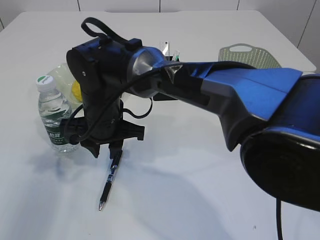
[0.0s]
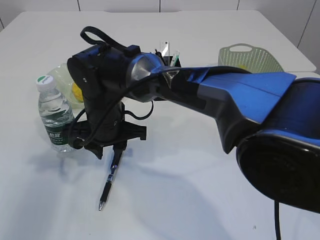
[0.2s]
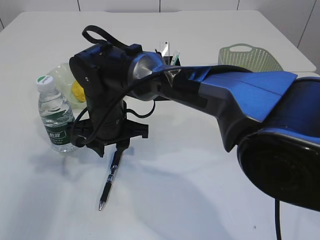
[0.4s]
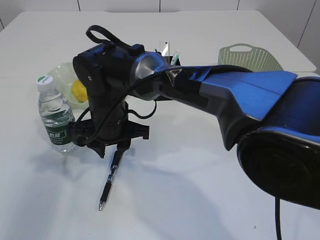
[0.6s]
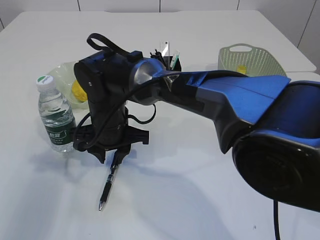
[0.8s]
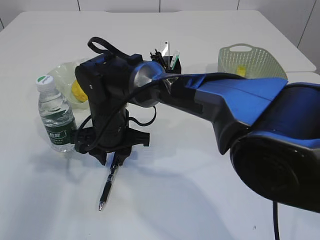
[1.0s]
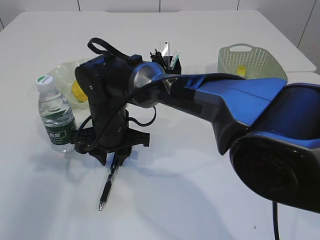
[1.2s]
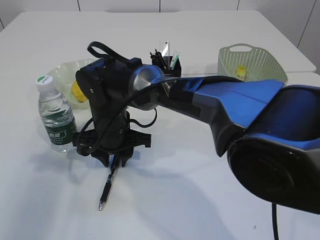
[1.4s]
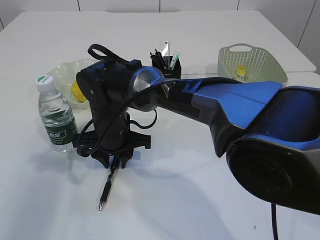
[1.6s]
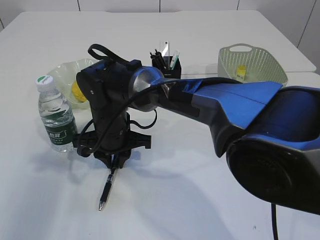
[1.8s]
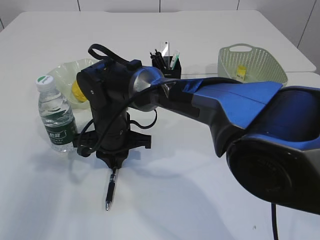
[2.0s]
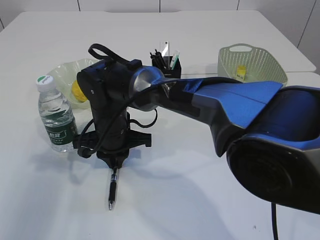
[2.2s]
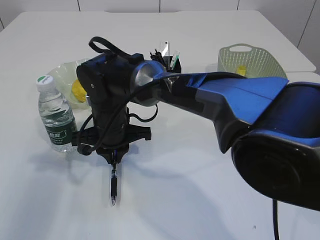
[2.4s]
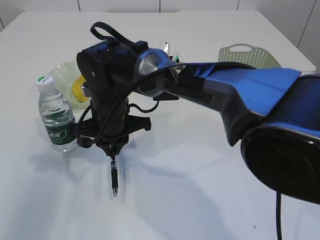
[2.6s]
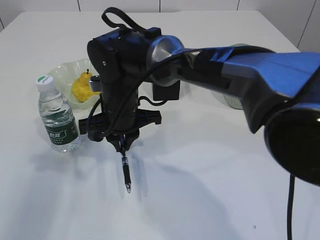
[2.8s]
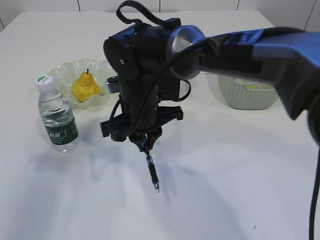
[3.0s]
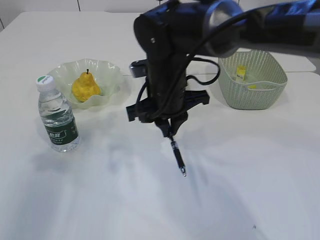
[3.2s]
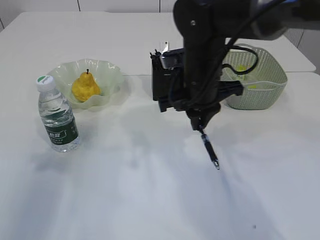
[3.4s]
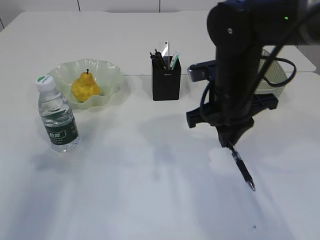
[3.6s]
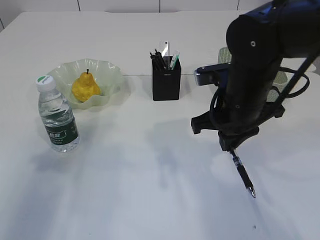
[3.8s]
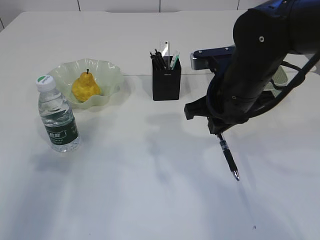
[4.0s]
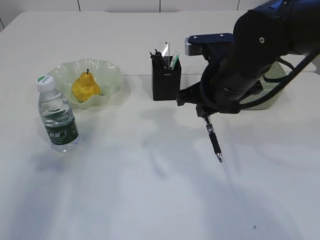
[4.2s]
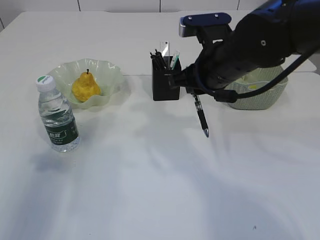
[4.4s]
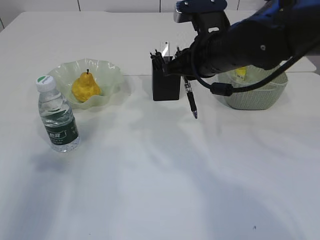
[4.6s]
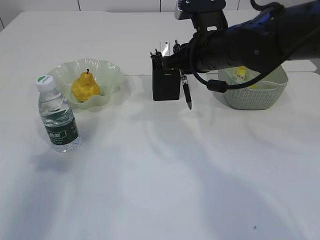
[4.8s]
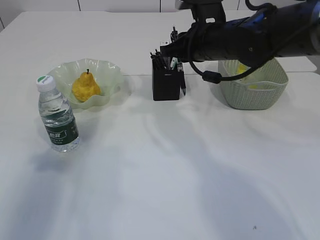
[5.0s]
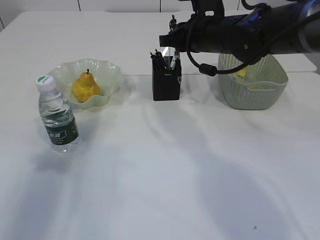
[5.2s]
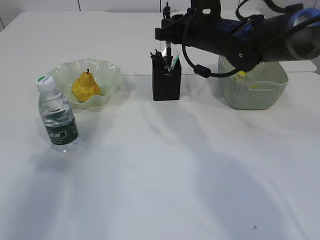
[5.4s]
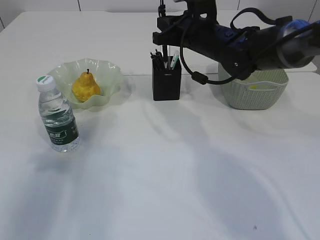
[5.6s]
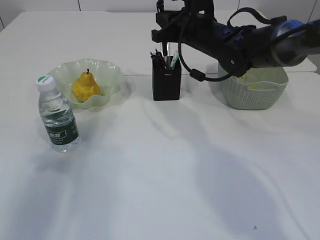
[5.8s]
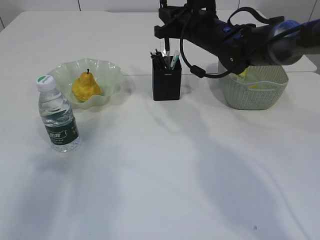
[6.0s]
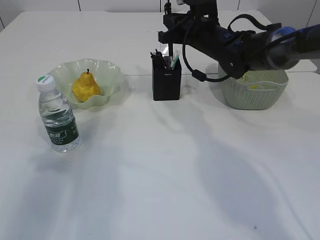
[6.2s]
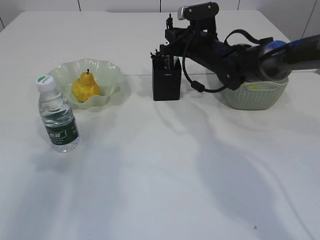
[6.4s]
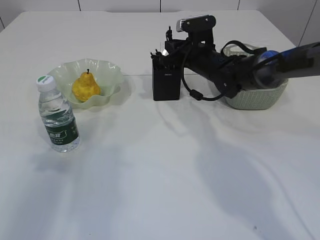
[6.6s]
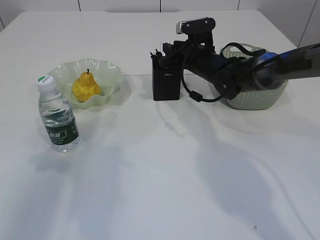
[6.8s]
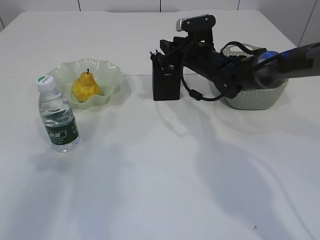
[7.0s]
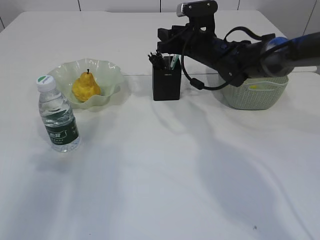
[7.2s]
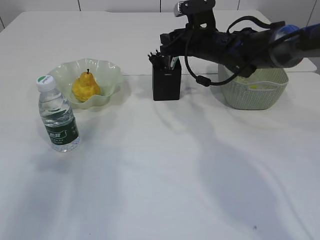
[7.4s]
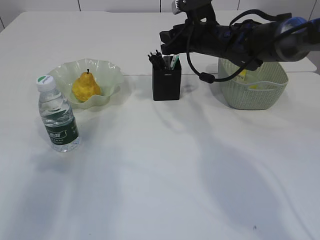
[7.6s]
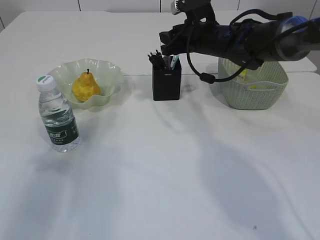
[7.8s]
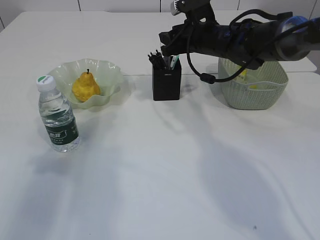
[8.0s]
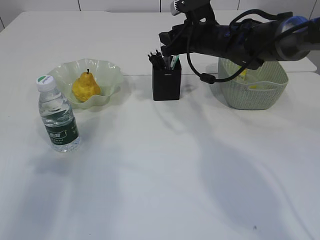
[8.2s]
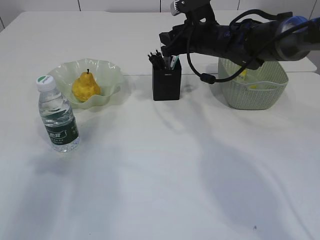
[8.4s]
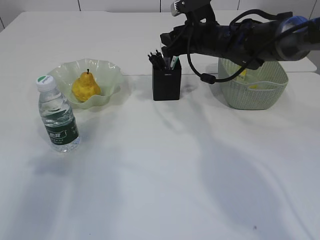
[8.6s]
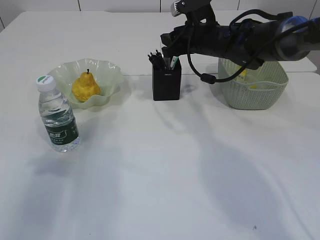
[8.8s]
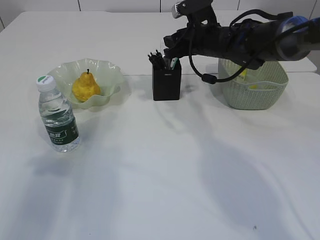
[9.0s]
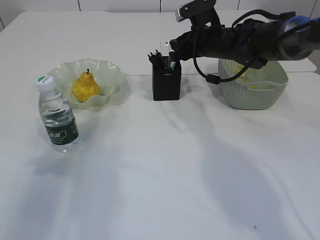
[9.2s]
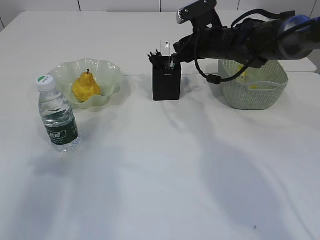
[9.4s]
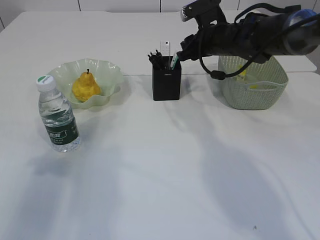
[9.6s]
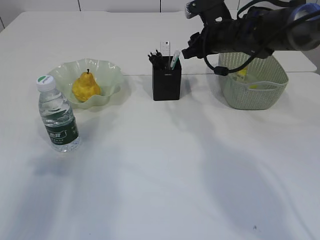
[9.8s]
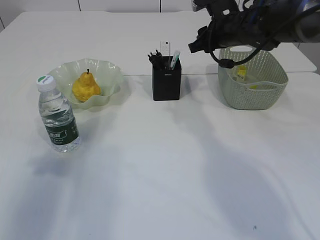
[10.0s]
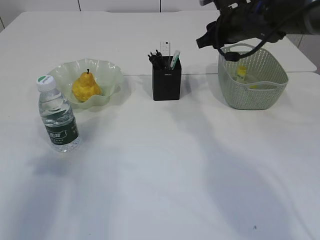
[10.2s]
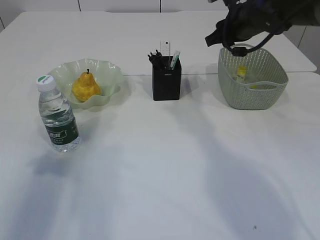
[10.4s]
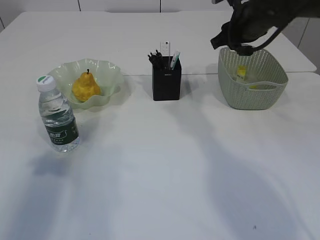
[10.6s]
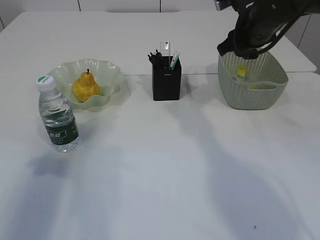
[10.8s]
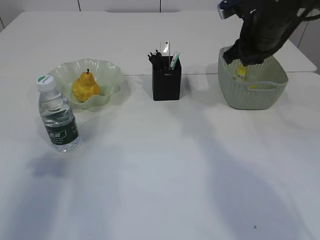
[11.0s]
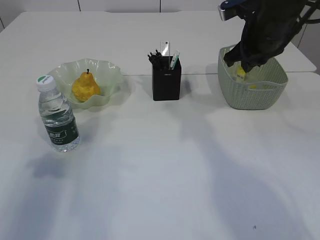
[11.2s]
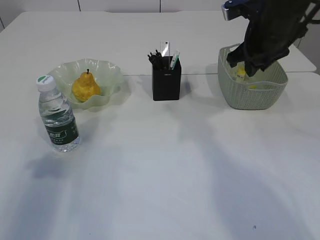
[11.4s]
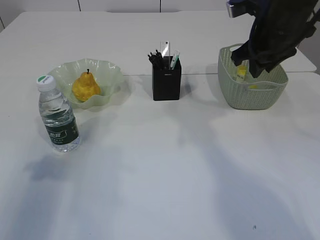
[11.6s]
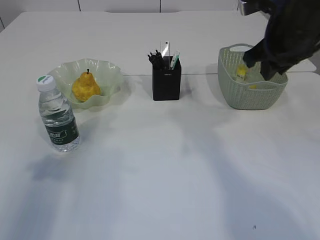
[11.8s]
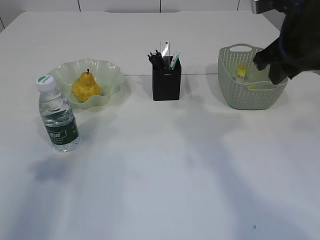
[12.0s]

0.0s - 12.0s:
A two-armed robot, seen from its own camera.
Step, 0.0s - 2.6s: Pick up the pen with right arm.
Step, 2.8s - 10.4s: Place the pen into the pen holder.
0.0s - 1.6s: The grippers make only small movements.
1.6s - 3.0s: The right gripper travels to the right and upward by approximately 10 cm, and closes up.
3.0s - 4.4s: The right gripper moves to the right and upward, about 15 cm.
4.4s - 6.0s: The right gripper travels forward by roughly 15 cm.
6.0s - 7.6s: The right gripper reaches roughly 10 cm downward, then returns, and opens up.
7.6s - 9.0s: Both grippers stay put.
9.0s - 10.4s: The right gripper heads to the right, covering roughly 5 cm.
10.4s - 12.0s: The right gripper heads backward, covering about 15 cm.

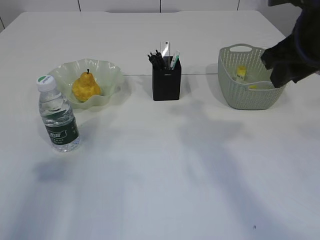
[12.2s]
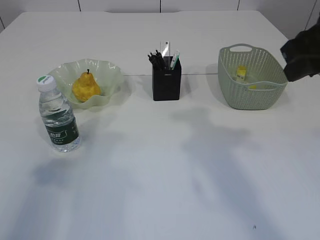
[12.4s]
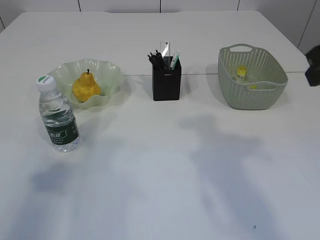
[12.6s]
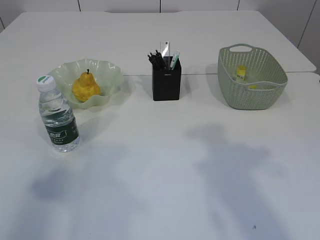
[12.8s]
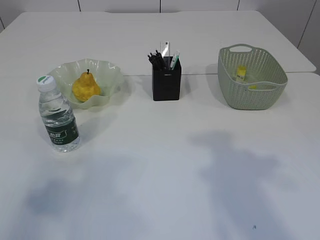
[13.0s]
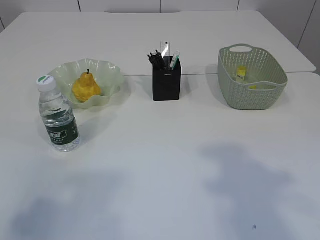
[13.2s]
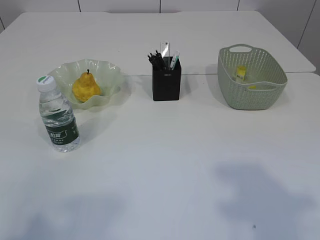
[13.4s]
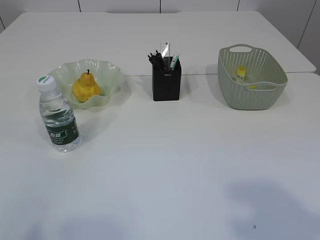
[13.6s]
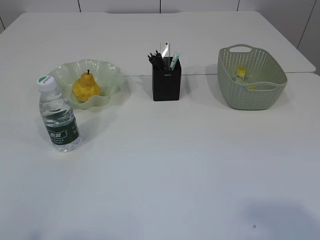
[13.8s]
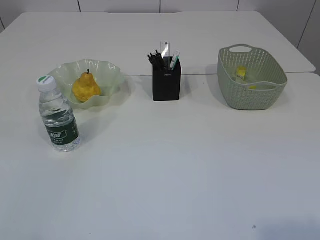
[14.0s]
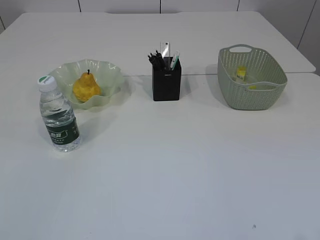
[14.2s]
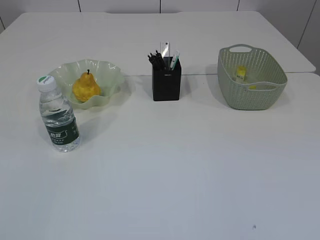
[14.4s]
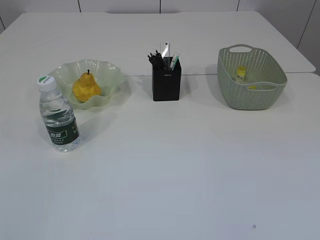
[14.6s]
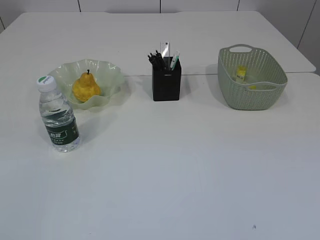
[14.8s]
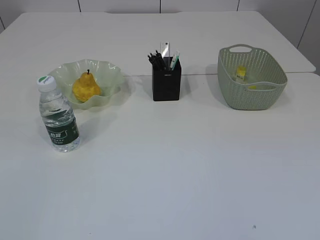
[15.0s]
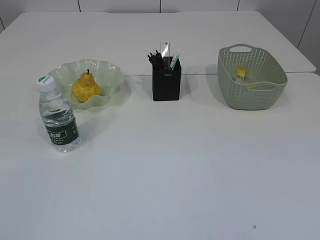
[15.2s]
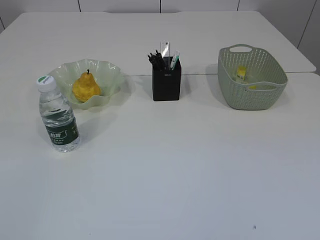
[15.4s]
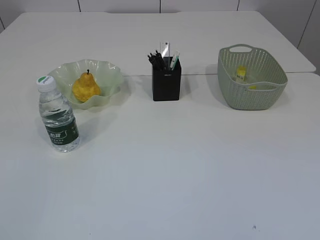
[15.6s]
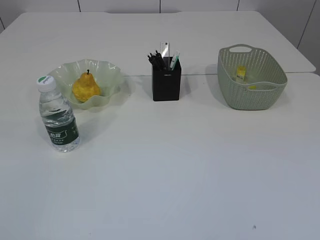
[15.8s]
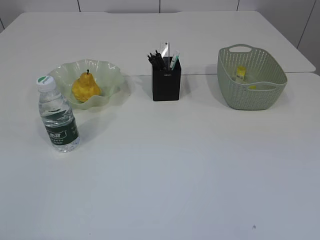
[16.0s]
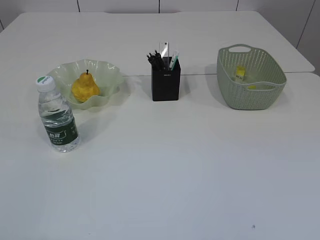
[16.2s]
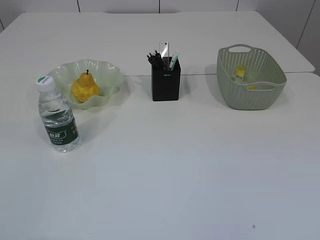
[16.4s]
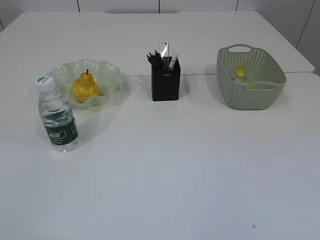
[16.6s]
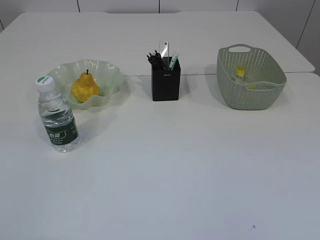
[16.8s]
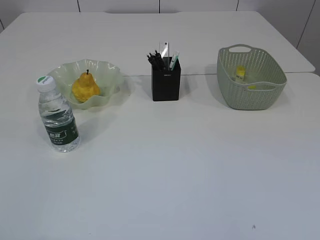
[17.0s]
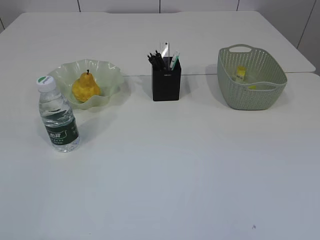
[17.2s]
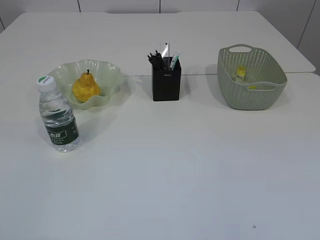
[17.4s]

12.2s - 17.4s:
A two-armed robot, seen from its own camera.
12.2s - 14.0s: The grippers both shift backward by some 25 cm.

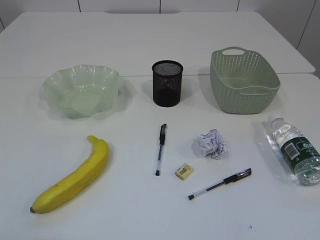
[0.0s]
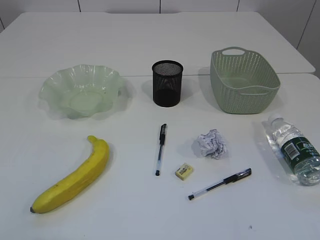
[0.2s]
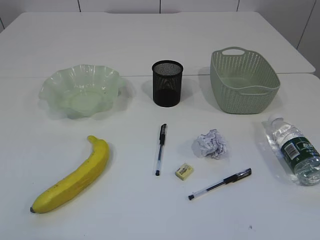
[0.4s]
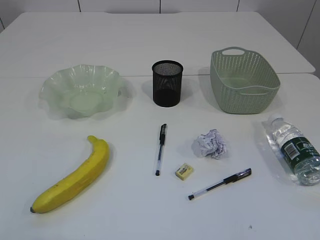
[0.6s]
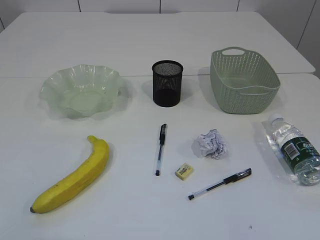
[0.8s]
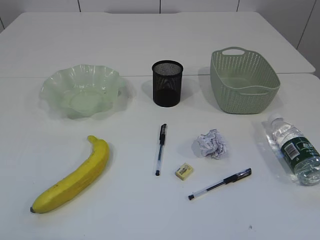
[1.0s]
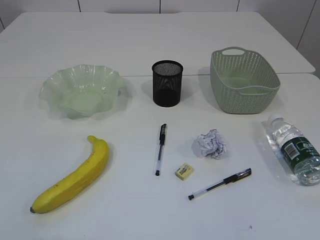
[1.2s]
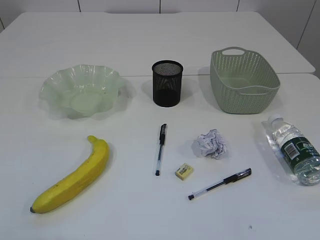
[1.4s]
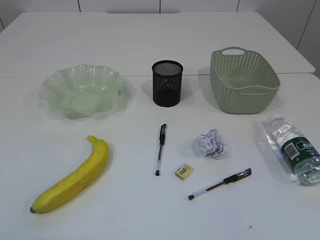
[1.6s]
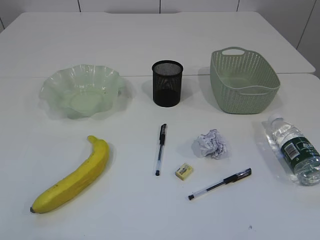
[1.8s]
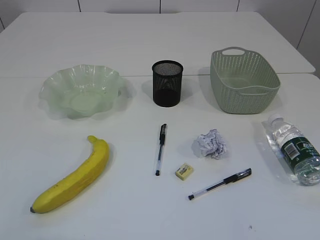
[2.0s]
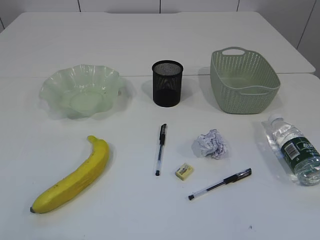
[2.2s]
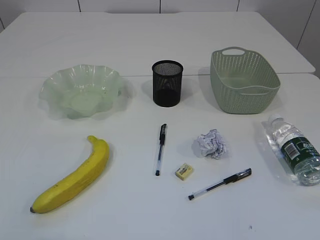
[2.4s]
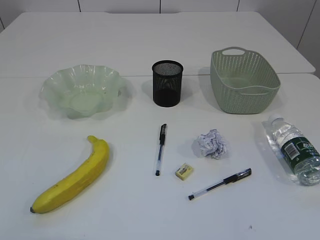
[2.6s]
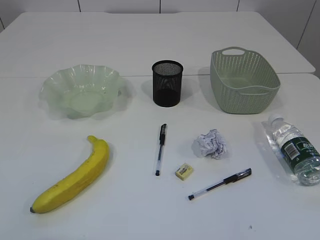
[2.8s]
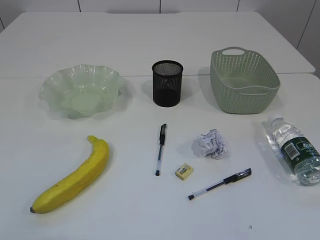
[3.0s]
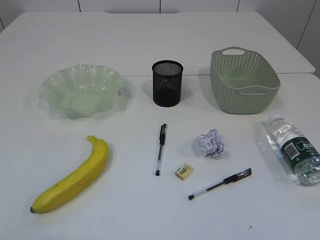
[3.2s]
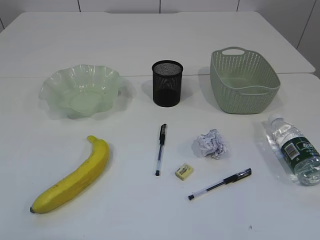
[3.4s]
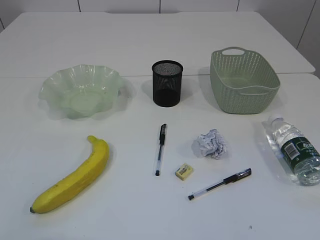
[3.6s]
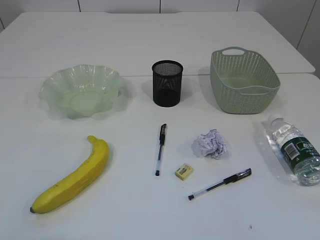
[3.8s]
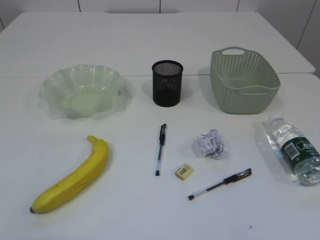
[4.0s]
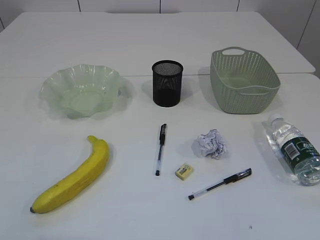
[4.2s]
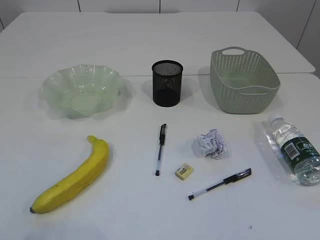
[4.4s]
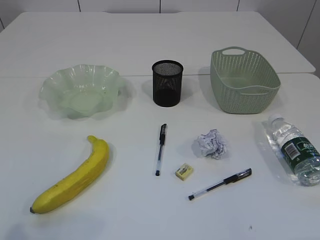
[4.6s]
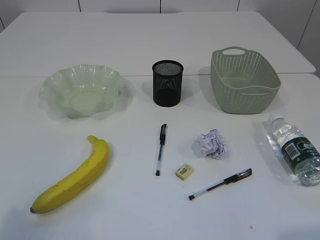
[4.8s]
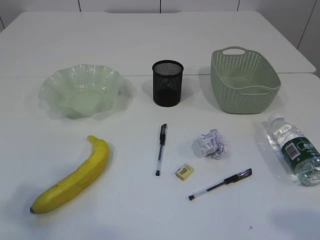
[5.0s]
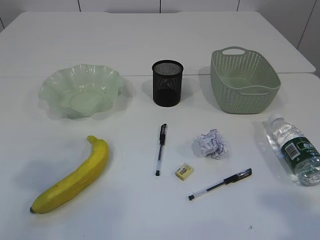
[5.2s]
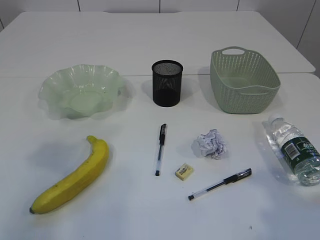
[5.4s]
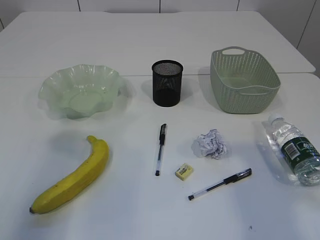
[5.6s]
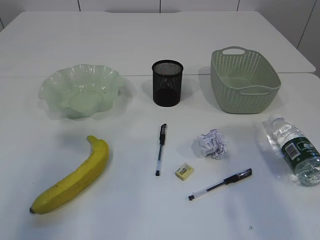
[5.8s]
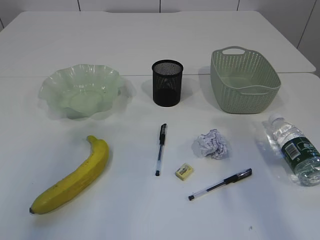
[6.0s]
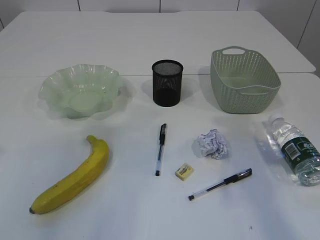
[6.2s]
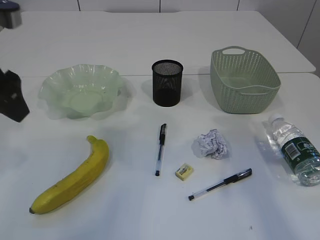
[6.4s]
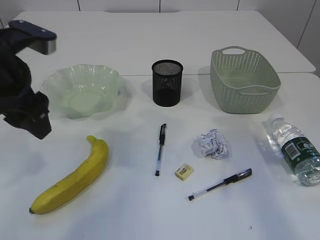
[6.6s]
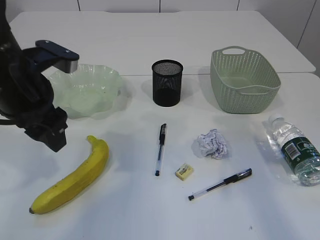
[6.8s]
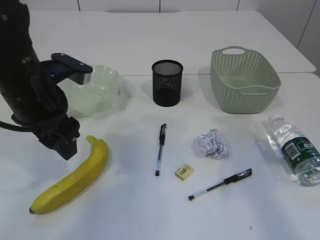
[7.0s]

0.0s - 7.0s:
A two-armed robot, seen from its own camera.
1.4s - 4.2s: Both grippers stay about where they are.
4.2s - 5.6s: Both grippers move forward and upward, some 20 cm. The left gripper opens up. Meanwhile the right gripper opens its fingers.
5.6s - 7.0s: The left gripper travels to the right, downward and forward by approximately 25 cm; the right gripper travels forward and downward by about 15 cm.
